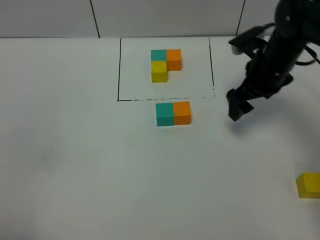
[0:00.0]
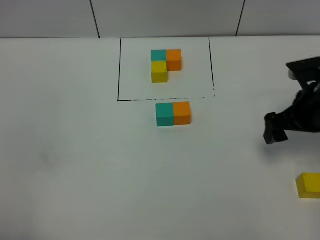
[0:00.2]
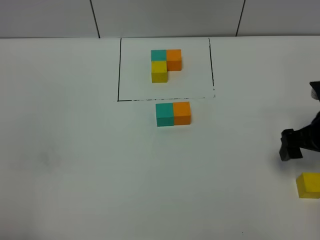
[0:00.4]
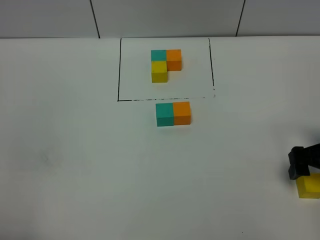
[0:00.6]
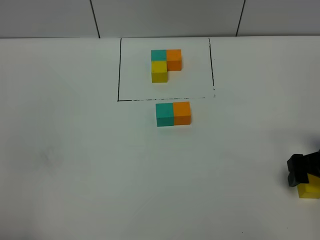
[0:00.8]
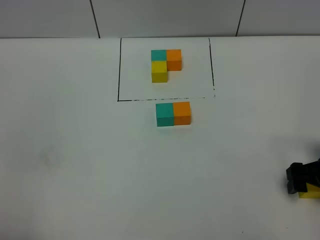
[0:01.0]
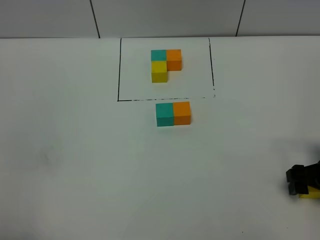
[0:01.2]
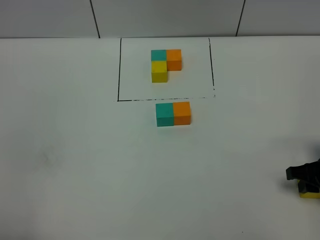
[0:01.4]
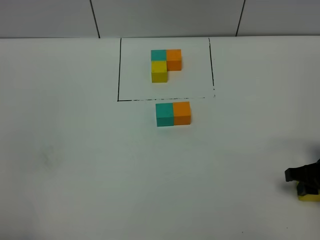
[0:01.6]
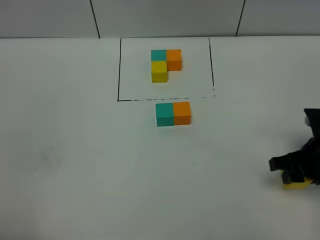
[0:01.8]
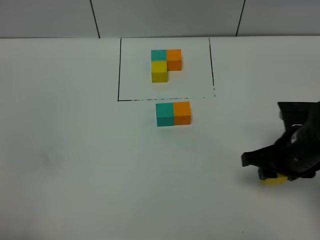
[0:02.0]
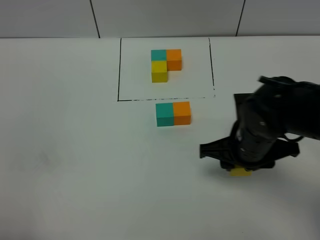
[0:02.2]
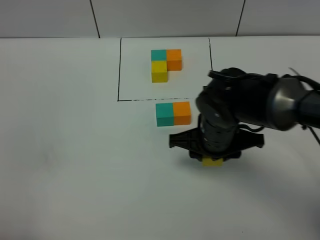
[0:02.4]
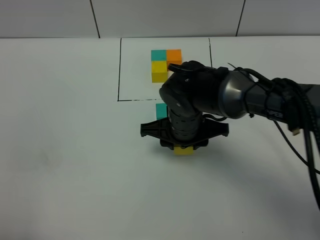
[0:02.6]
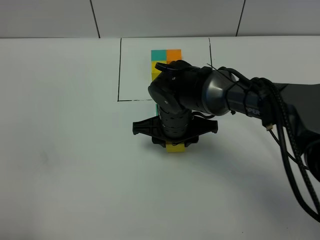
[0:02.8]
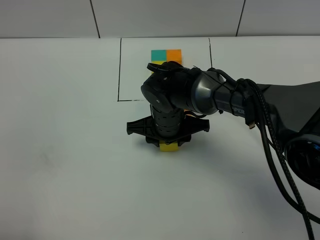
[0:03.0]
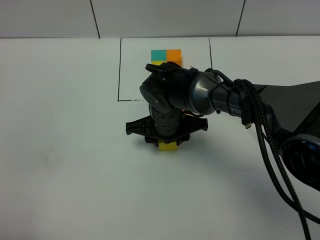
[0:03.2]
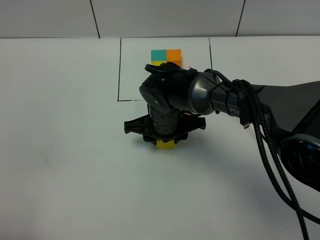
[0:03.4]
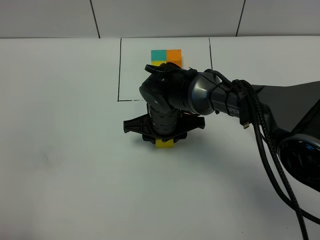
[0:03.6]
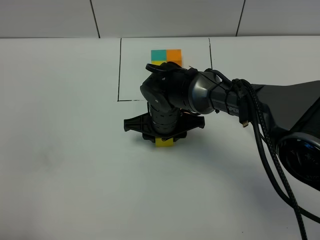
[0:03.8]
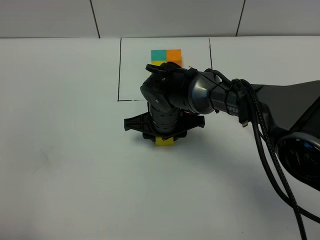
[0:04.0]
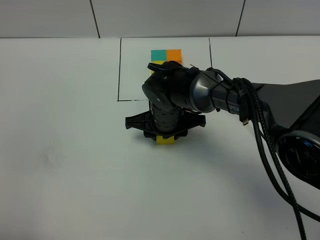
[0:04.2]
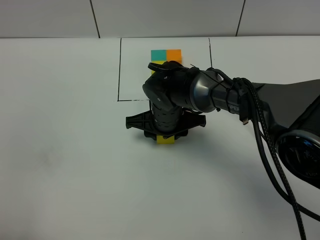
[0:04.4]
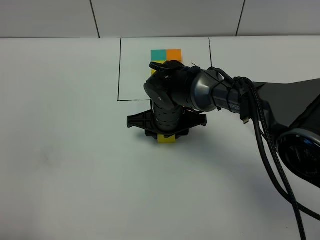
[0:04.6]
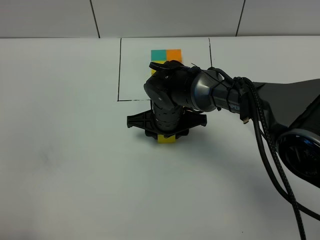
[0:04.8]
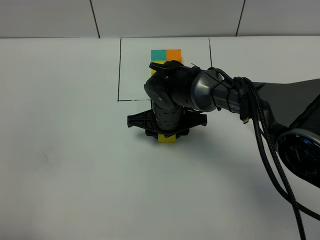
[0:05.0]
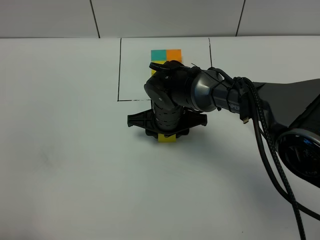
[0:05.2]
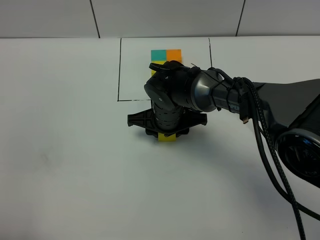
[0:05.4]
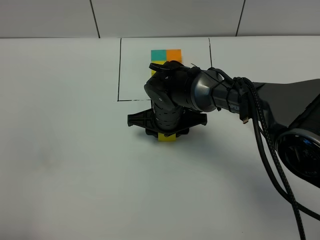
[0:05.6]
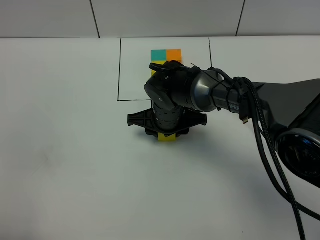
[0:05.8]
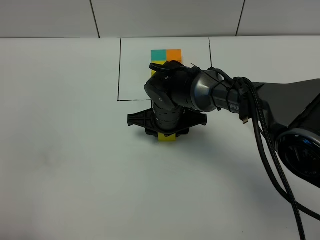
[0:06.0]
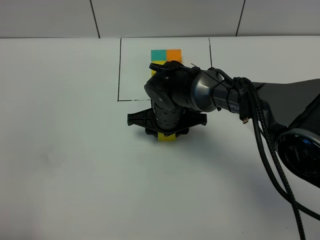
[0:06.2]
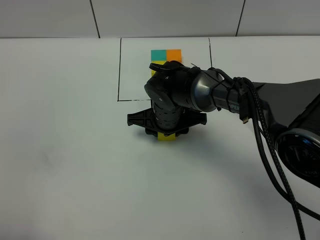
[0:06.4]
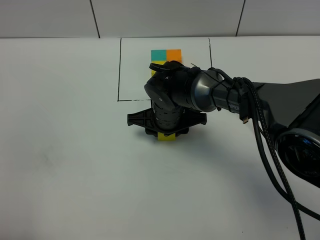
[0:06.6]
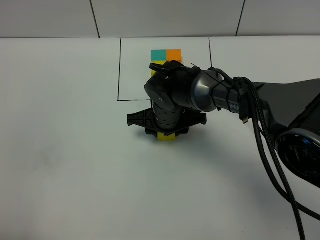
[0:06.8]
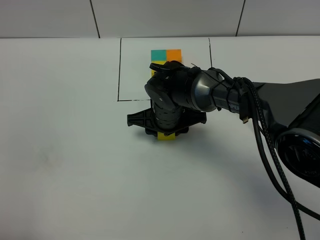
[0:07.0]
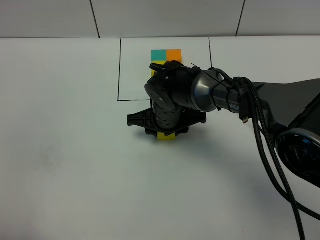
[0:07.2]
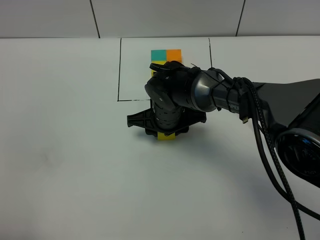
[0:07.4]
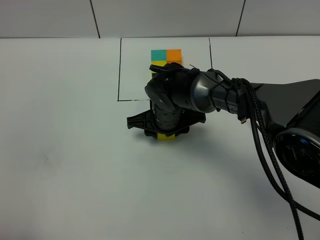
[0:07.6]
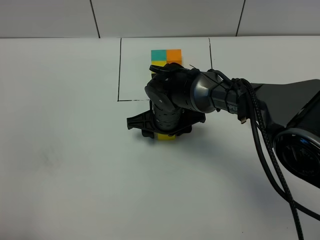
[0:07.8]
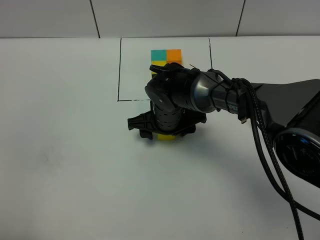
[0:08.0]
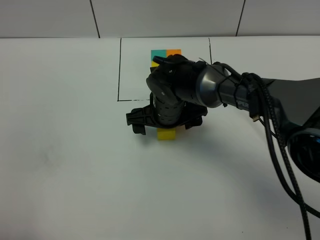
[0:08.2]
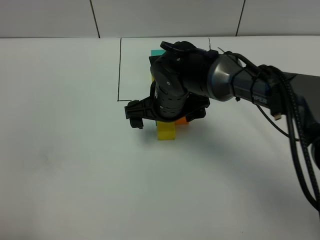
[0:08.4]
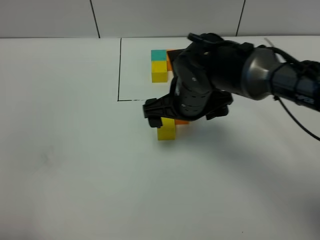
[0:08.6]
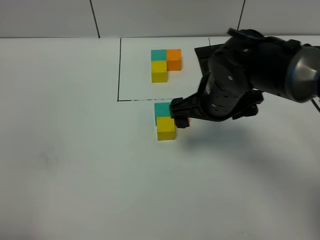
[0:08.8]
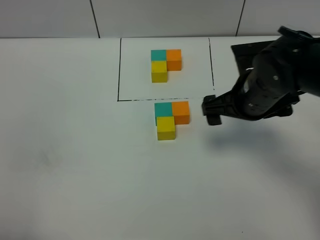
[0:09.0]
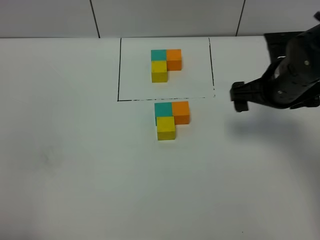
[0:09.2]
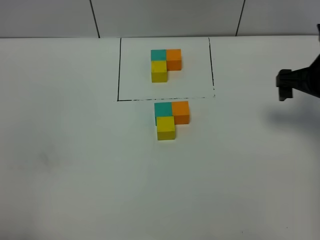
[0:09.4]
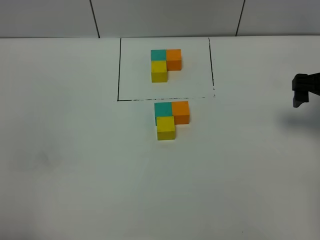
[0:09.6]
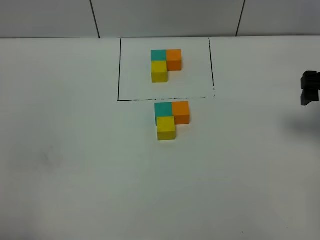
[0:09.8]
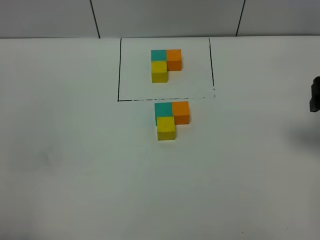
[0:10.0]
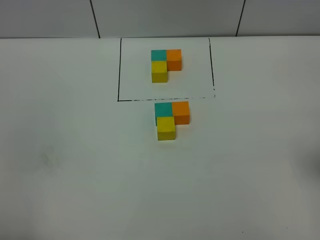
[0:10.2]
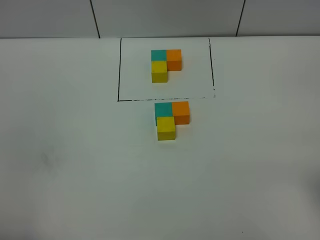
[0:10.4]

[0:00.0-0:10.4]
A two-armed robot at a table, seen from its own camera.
Task of the whole recording: According to the building block template in front, assemble the scattered blocks together.
Step, 0:00.0 to 0:08.0: Put the yellow build block on the behind of the green build block.
0:00.0 to 0:01.4: The right gripper is displaced backward, to the right and downward by approximately 20 cm, and closes its fingers.
0:01.4 to 0:03.0: The right gripper moves to the left, some 30 cm.
0:03.0 to 0:04.4: The grippers move only a little.
0:04.4 to 0:07.4: The two grippers keep their place.
0:07.4 to 0:09.0: The right gripper is displaced to the right and upward by approximately 20 cm, and opens up.
0:09.0 to 0:10.4: The right gripper heads backward, to the right and upward, covering some 25 cm.

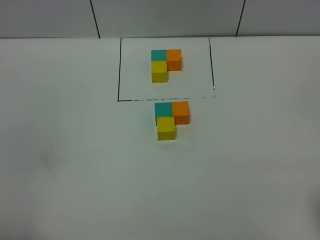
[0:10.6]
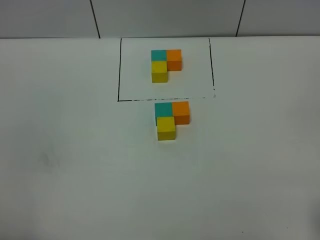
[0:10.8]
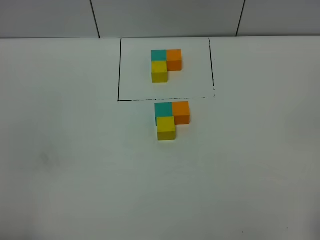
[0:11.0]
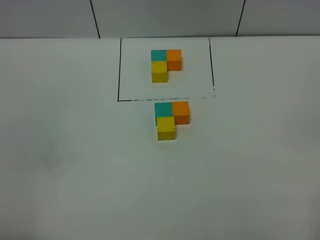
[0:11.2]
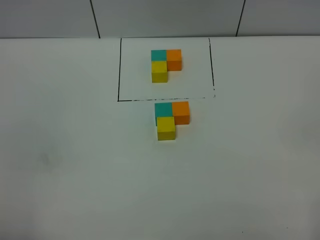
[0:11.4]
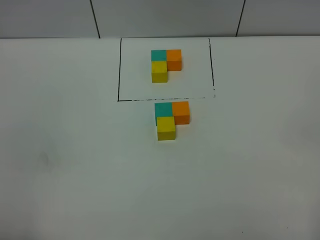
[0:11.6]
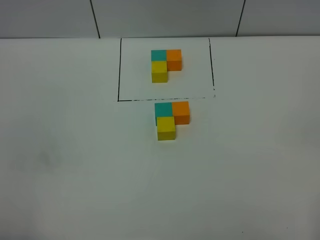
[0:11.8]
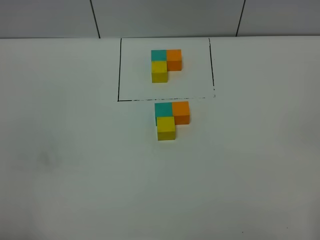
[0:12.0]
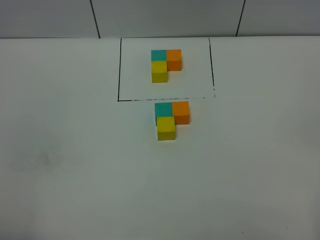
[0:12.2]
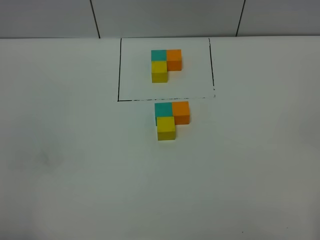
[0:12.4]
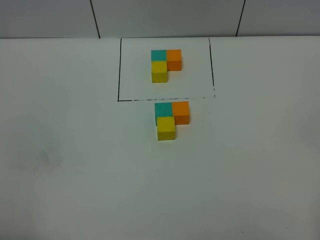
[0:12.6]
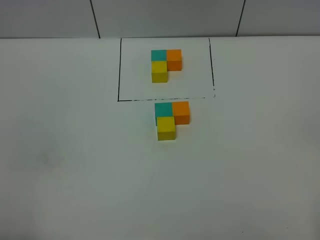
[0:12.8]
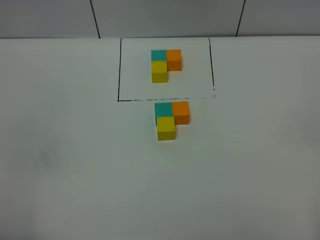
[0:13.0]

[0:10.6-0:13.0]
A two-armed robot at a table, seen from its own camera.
Task of the whole recording: According to the building block template in front, assemble the scattered blocks together.
0:11.8 to 0:13.0: The two grippers keep their place.
